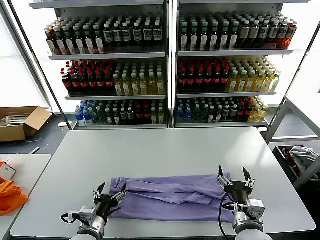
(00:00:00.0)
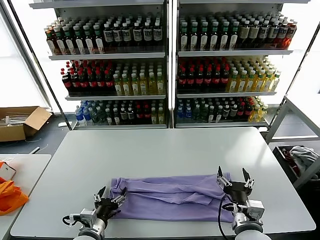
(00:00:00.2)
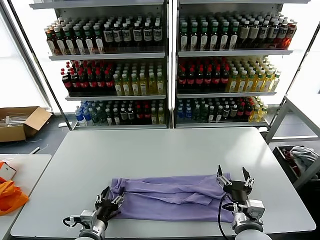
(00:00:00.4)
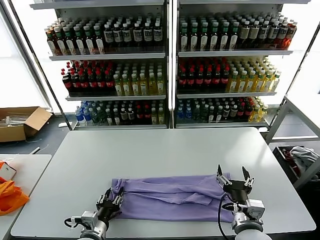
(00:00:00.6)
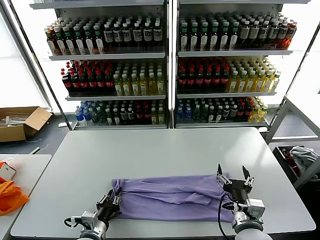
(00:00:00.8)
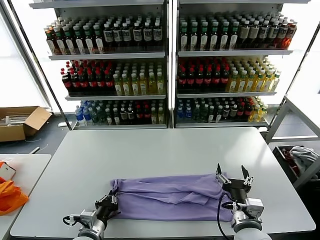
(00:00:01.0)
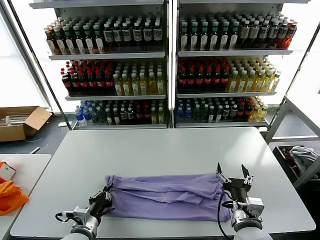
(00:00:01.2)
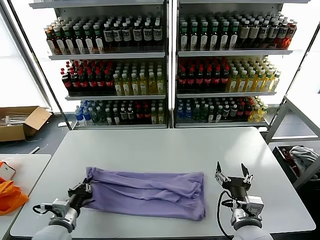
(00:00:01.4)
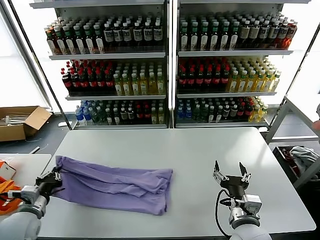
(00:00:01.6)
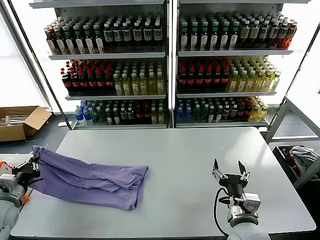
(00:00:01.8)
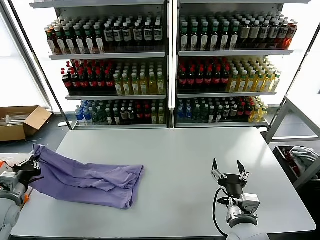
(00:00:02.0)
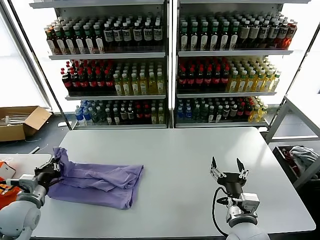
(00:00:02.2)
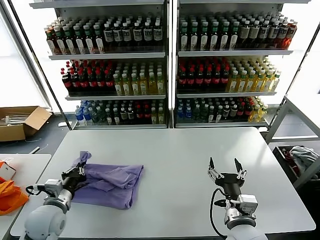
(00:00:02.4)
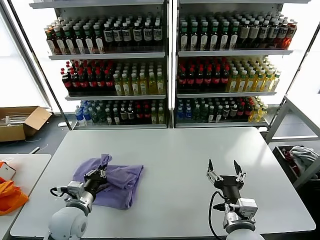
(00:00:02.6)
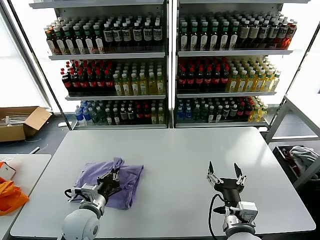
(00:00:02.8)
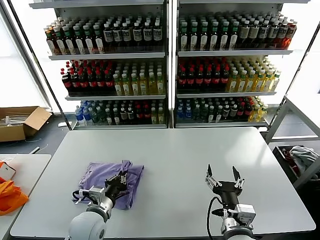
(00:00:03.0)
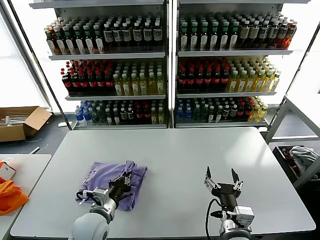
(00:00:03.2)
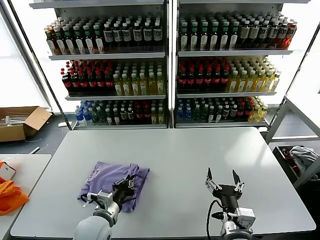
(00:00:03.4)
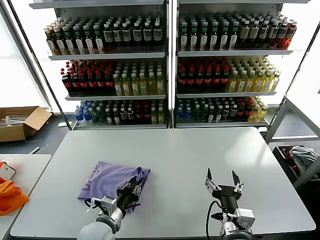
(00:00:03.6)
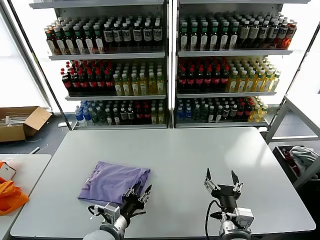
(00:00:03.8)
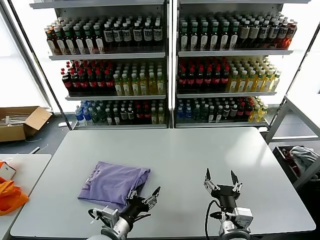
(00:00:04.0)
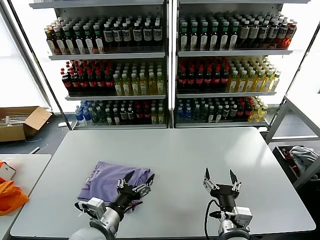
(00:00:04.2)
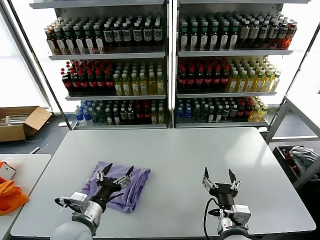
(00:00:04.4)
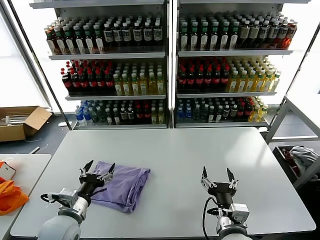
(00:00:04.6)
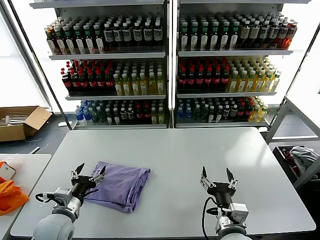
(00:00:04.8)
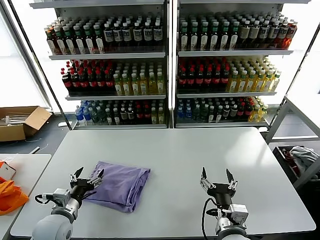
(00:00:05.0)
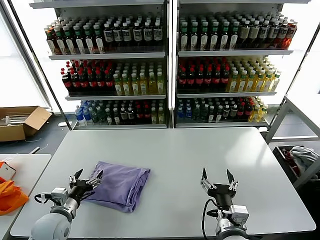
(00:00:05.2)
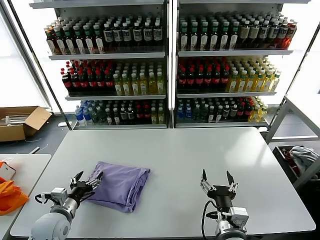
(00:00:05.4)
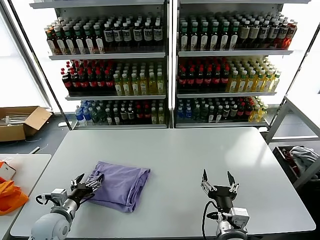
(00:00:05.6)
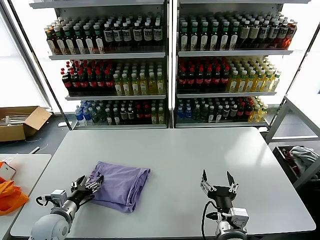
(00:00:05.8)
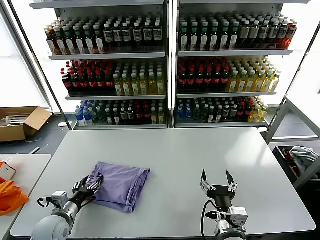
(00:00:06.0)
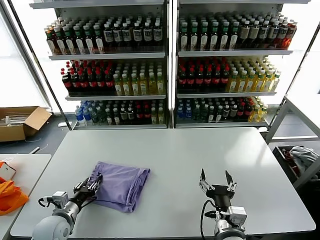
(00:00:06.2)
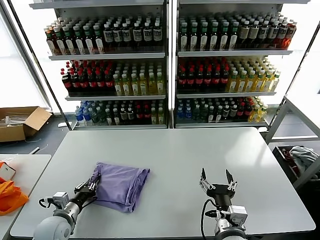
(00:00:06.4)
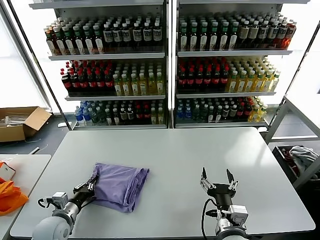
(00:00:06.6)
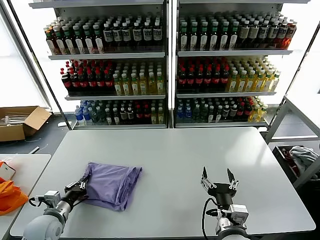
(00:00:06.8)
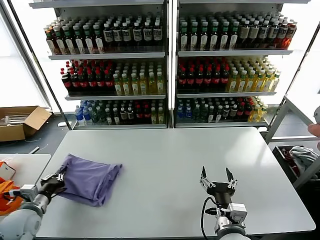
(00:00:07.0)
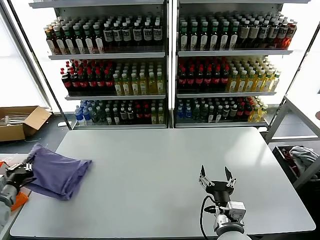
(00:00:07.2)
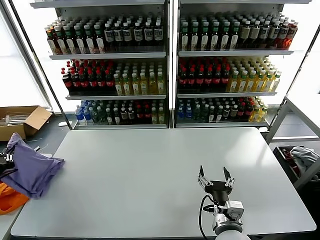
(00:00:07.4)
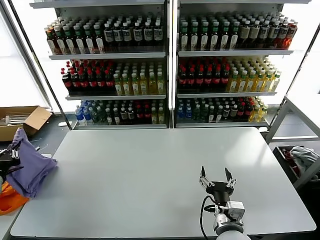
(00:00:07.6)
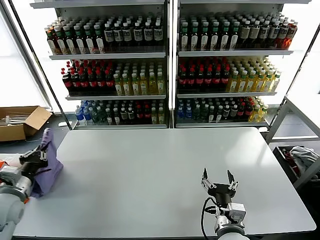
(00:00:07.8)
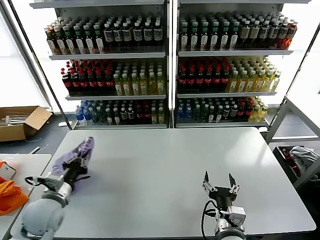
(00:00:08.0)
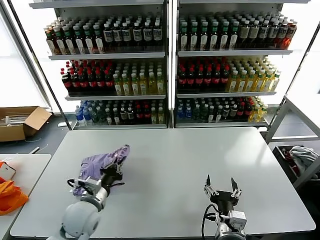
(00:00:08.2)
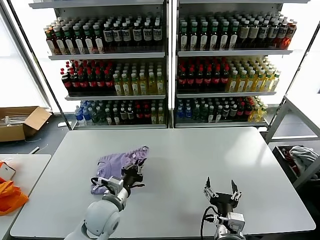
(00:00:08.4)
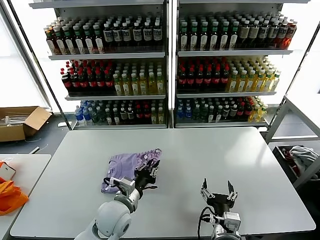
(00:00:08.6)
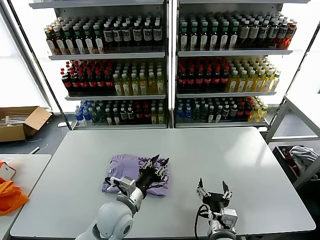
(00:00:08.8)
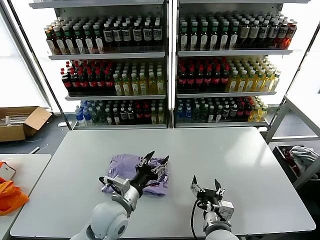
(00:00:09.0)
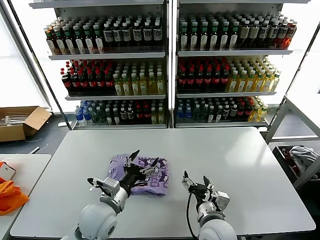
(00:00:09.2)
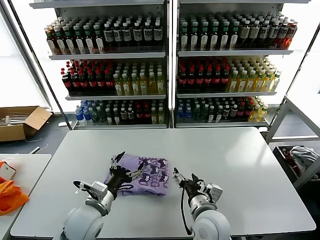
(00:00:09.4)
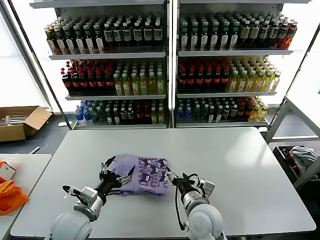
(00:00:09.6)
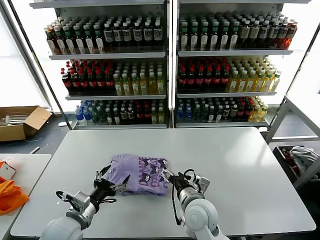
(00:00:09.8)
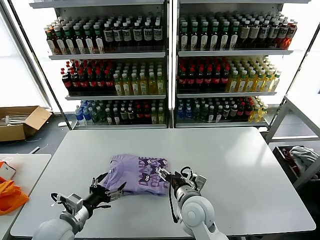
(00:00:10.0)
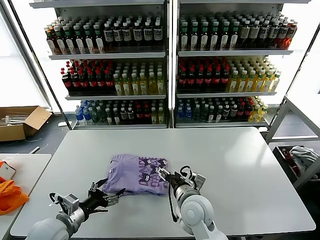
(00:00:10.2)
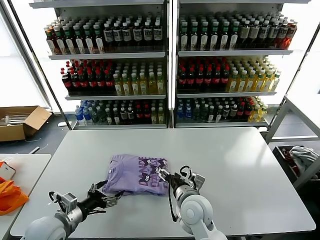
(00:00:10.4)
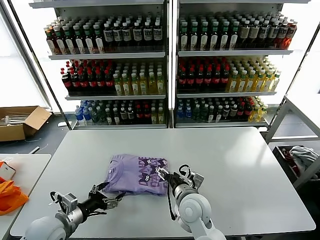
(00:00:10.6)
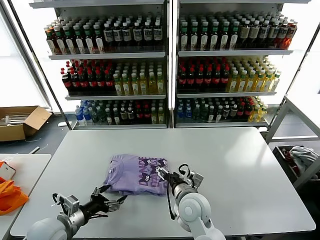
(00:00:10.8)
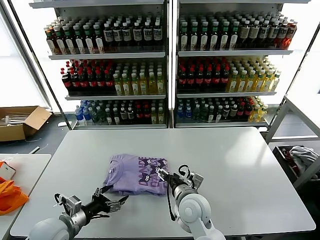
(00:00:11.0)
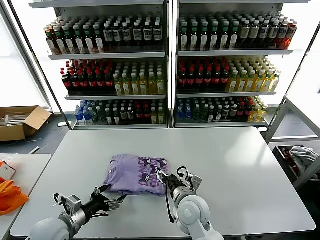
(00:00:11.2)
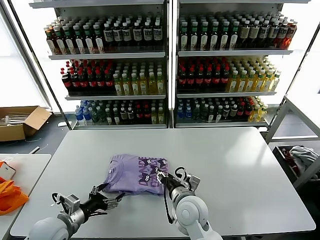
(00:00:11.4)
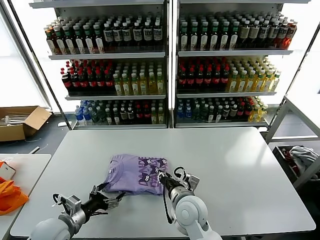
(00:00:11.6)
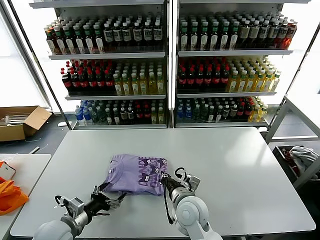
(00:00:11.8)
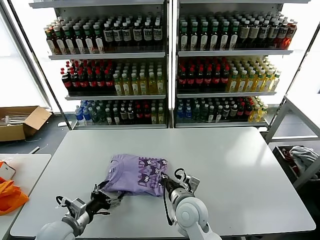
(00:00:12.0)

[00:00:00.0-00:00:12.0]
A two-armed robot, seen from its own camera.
Task of the whole recording: fold and organize the clothes.
Step, 00:00:00.0 to 00:00:01.0: use the left gripper to clamp the left edge of the fabric.
Step, 00:00:01.2 to 00:00:03.6: use the left gripper to drag the left edge of the fabric to the left and folds it over the right edge.
Step, 00:00:03.8 to 00:00:08.6: Flip the folded clothes over with left gripper.
00:00:00.0 to 00:00:01.6: The left gripper is displaced to the left by about 15 cm, and closes its fingers.
00:00:01.6 to 00:00:03.0: The left gripper heads to the right, covering some 20 cm.
00:00:03.0 to 00:00:04.4: The left gripper moves about 5 cm, and opens up.
00:00:04.4 to 00:00:06.0: The left gripper goes about 15 cm to the left and downward.
00:00:06.0 to 00:00:07.6: The left gripper heads to the left and upward, covering about 20 cm, and closes its fingers.
00:00:07.6 to 00:00:09.0: The left gripper moves to the right, about 40 cm, and opens up.
00:00:09.0 to 00:00:10.4: The left gripper moves to the left, some 20 cm, and opens up. Meanwhile the right gripper goes roughly 10 cm forward and to the left.
00:00:10.4 to 00:00:12.0: The right gripper closes up.

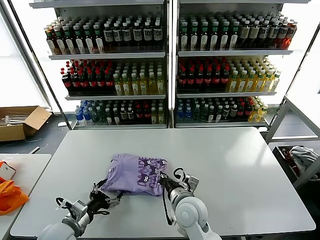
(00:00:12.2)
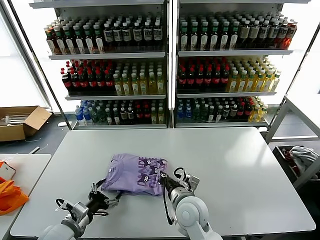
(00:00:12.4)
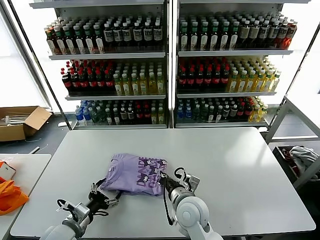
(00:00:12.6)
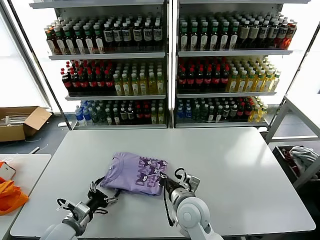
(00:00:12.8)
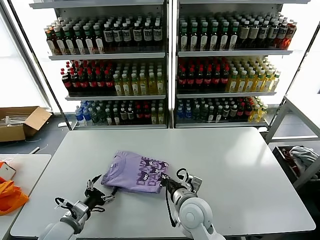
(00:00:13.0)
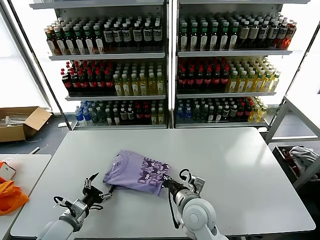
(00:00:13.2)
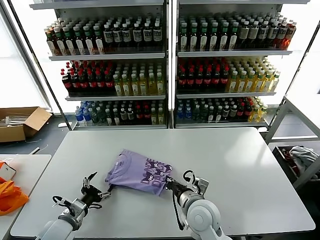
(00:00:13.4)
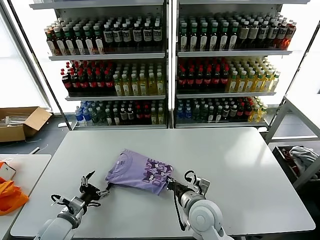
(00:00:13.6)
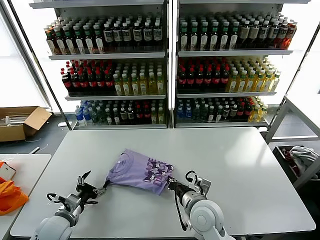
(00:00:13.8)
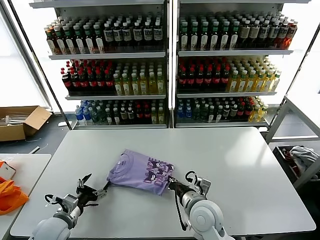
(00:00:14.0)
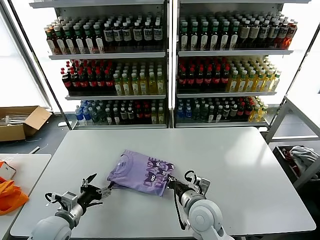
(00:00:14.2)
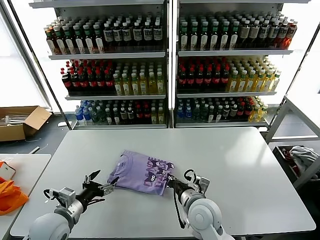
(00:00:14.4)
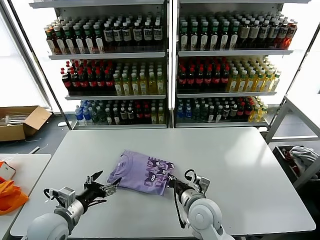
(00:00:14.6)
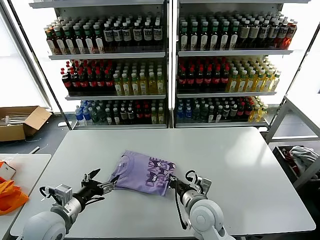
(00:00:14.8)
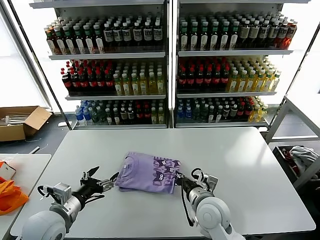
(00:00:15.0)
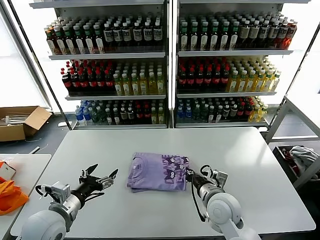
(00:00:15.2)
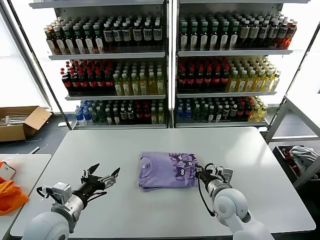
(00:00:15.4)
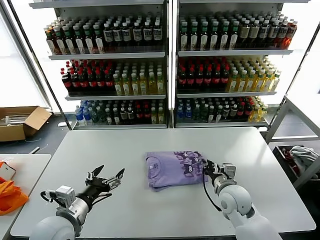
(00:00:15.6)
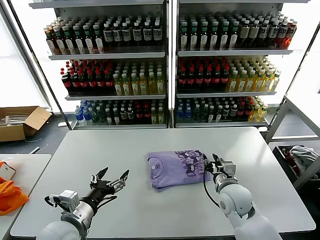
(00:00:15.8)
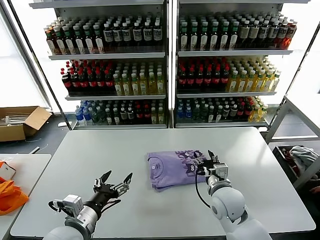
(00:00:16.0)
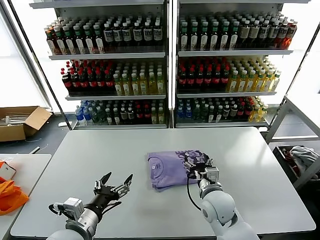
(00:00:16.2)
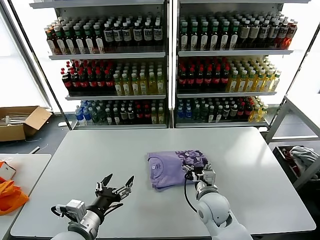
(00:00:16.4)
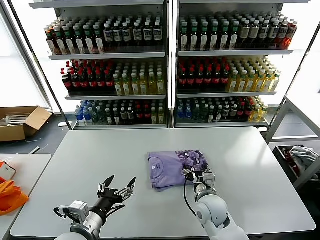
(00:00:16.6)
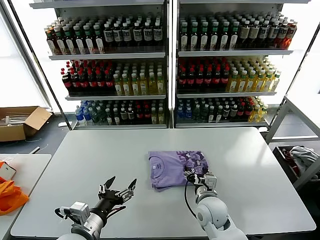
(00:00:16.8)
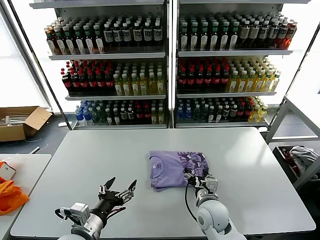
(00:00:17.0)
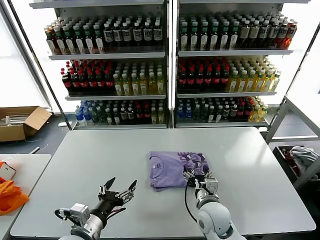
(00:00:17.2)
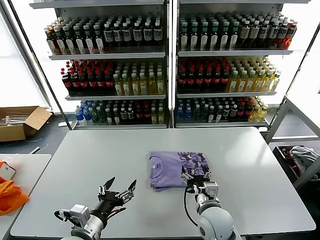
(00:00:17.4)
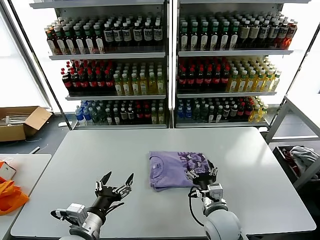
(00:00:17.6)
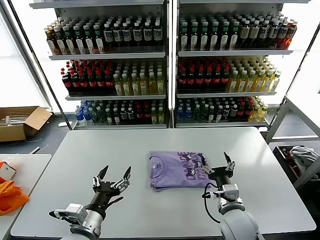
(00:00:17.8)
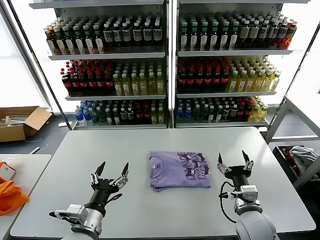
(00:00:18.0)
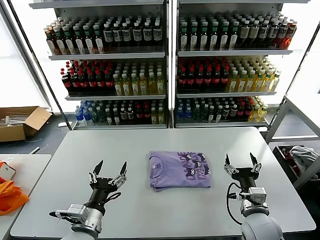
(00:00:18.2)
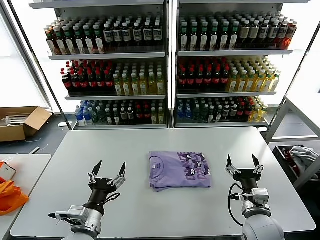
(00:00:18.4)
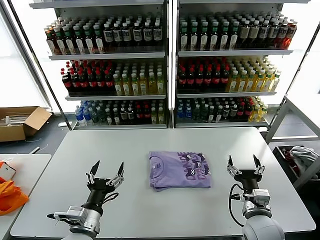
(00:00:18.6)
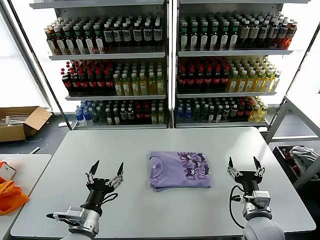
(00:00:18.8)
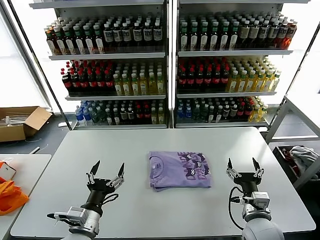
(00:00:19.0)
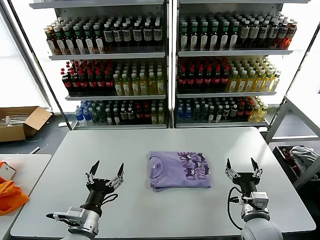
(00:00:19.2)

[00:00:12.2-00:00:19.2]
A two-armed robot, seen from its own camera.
Task of the whole recording: fold and organize the clothes.
Step, 00:00:12.2 to 00:00:17.0: Drag the clothes to the center of the table.
00:00:12.2 to 00:00:13.6: The grippers move only a little.
00:00:13.6 to 00:00:15.0: The left gripper travels upward by roughly 10 cm.
00:00:15.0 to 00:00:16.4: The left gripper shifts roughly 5 cm to the right. The right gripper reaches approximately 10 cm to the right, then returns, and opens up.
00:00:16.4 to 00:00:17.8: The right gripper is displaced backward by roughly 5 cm.
00:00:17.8 to 00:00:19.2: The right gripper goes approximately 5 cm to the right.
